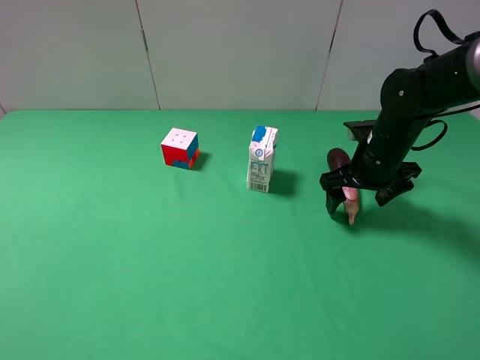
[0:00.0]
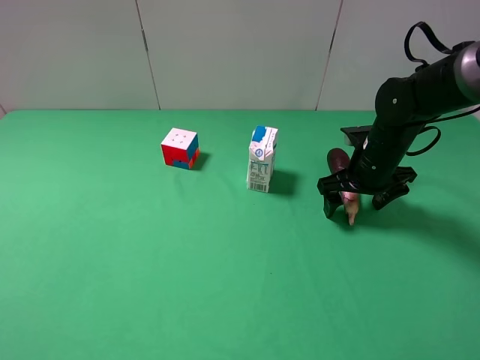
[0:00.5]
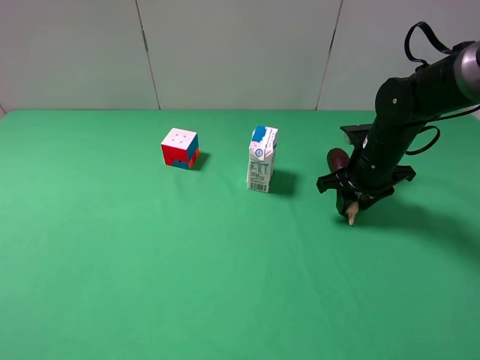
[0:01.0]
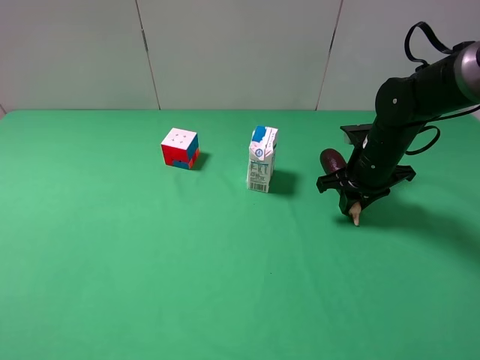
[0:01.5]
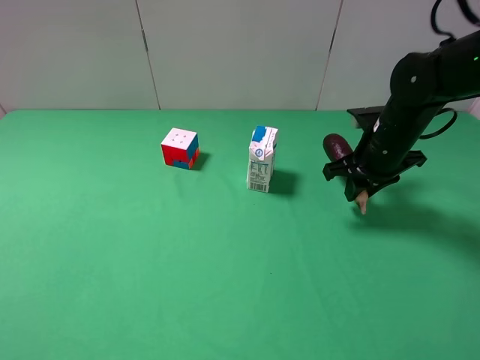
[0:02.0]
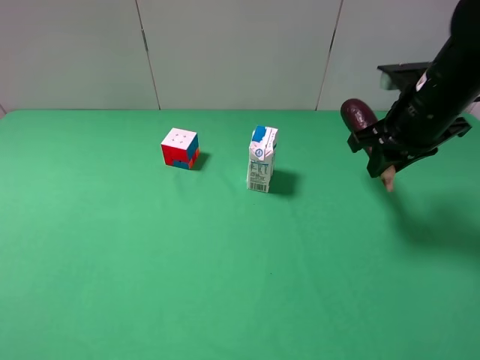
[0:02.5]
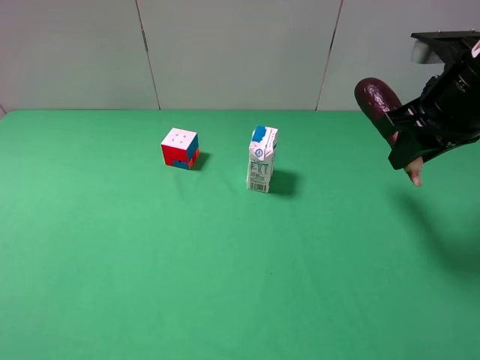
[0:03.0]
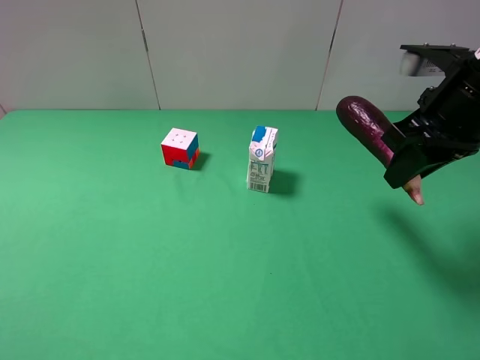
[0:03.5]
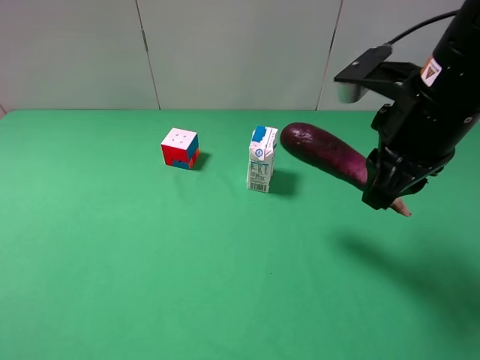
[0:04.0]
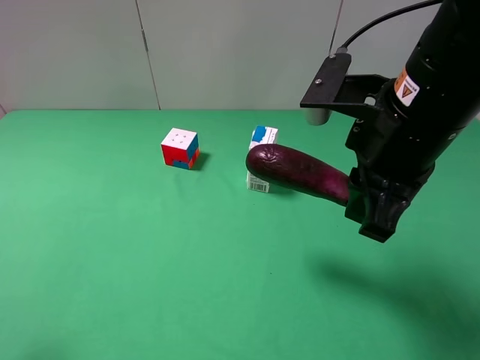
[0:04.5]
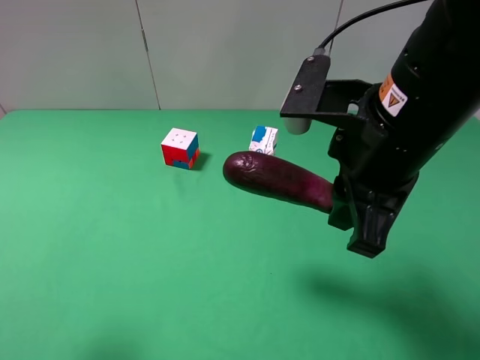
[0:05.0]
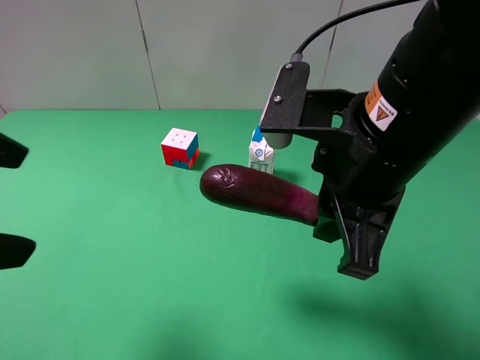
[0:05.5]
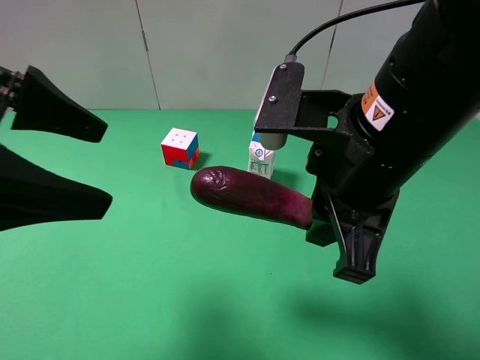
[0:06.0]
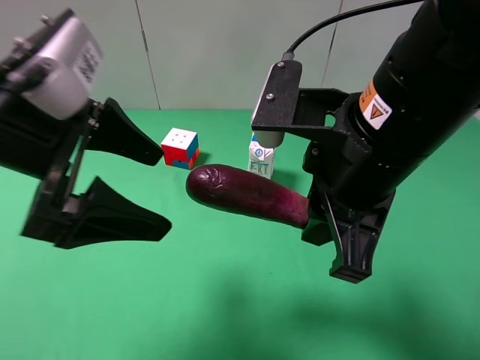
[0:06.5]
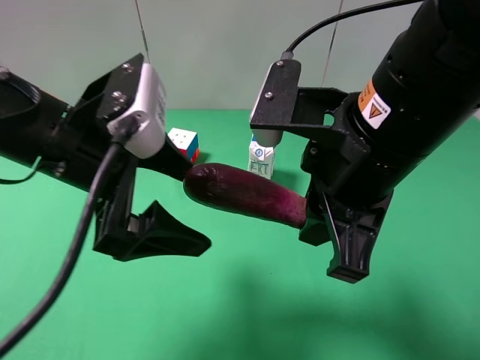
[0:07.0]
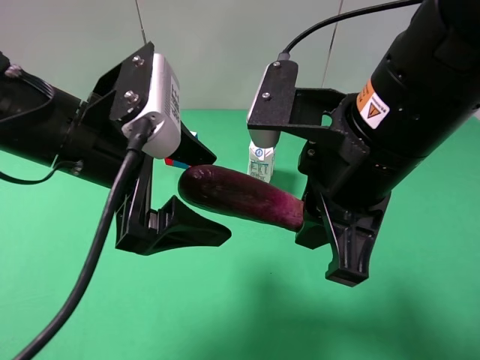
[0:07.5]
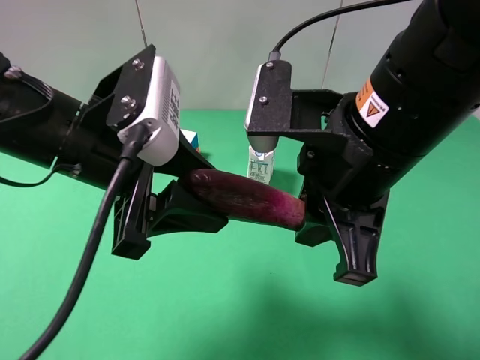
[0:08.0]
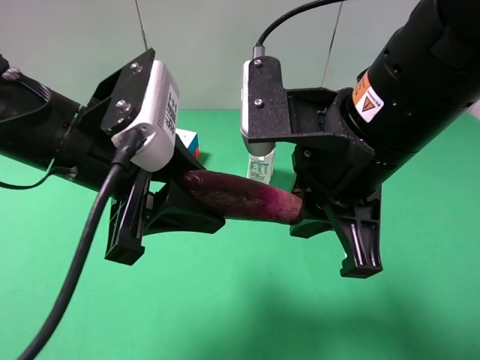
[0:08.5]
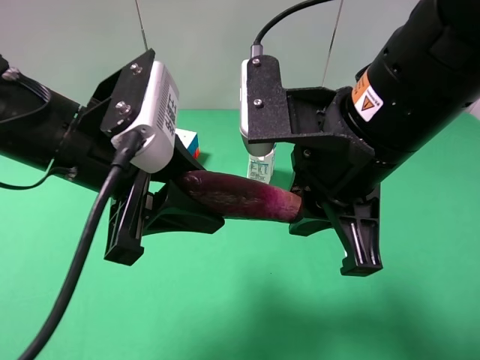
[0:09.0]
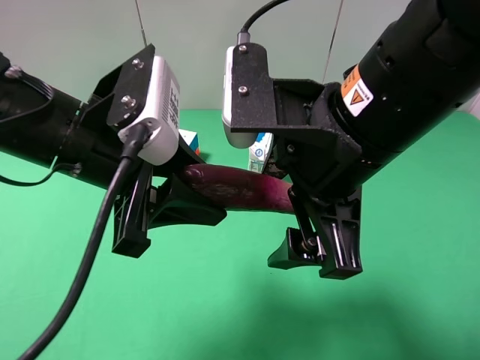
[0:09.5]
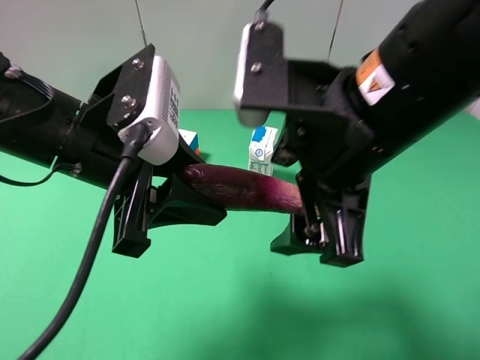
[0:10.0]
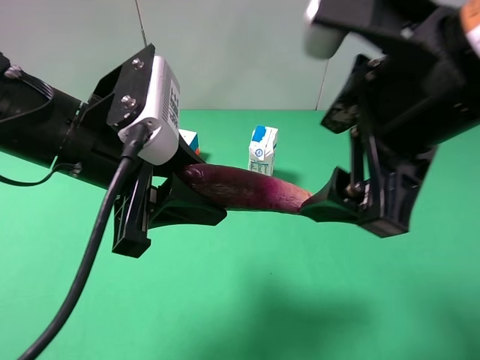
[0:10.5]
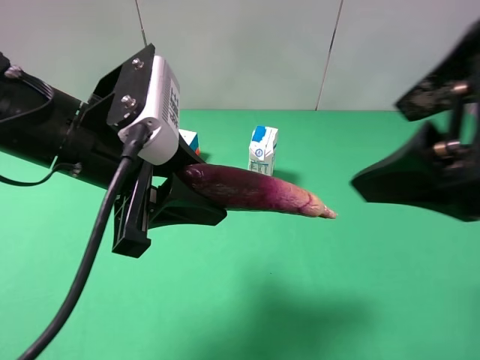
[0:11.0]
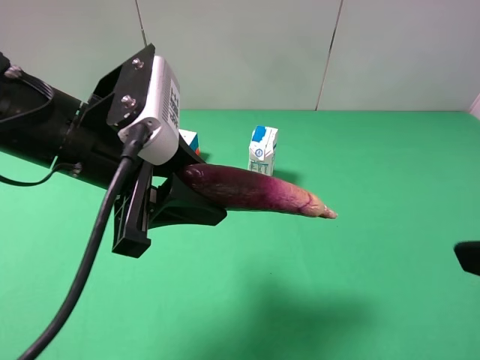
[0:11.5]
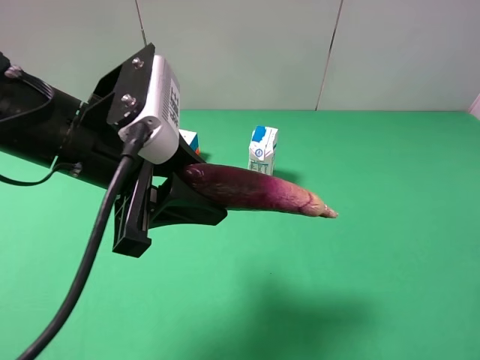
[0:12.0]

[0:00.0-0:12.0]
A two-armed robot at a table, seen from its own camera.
Task of the whole recording: use the right gripper to pick up the item and transfer it from the right gripper to the left gripper.
Step, 0:01.5 to 0:09.0: Pass the eggplant to the left gripper.
0:00.0 to 0:02.0: The right gripper closes up.
0:02.0 to 0:04.0: The right gripper is displaced upward, backward and to the left by about 20 cm.
0:04.0 to 0:06.0: The left gripper goes about 20 cm forward and to the right. Meanwhile the right gripper heads to the left and backward, covering about 10 cm.
0:06.0 to 0:08.0: The left gripper heads to the right and downward, covering about 10 cm, and closes its fingers.
0:08.0 to 0:10.0: The right gripper opens.
0:10.0 to 0:12.0: The right gripper shifts roughly 25 cm to the right and backward.

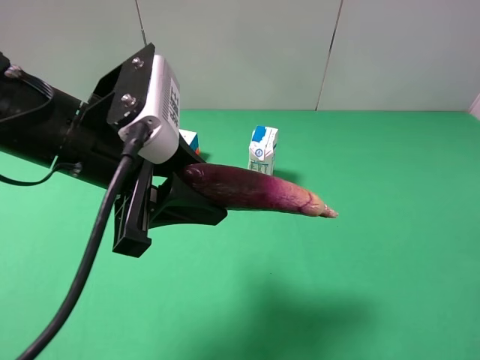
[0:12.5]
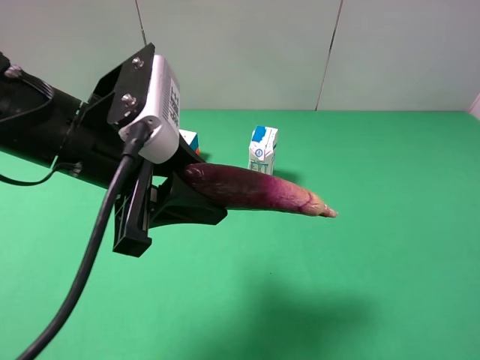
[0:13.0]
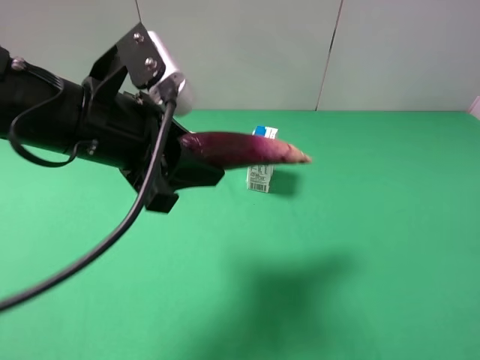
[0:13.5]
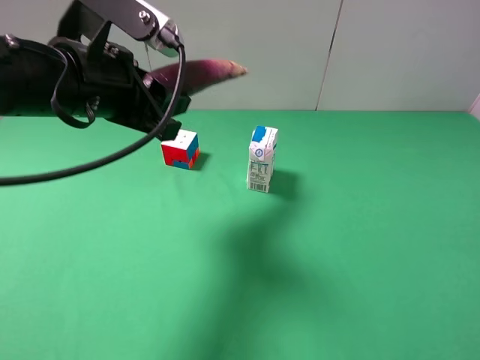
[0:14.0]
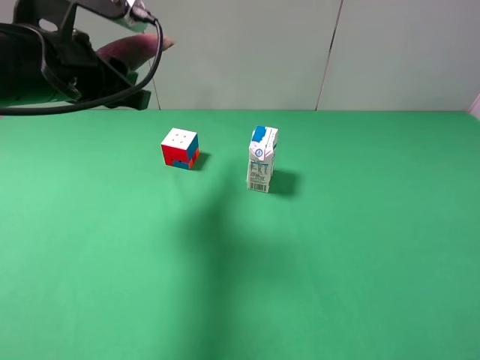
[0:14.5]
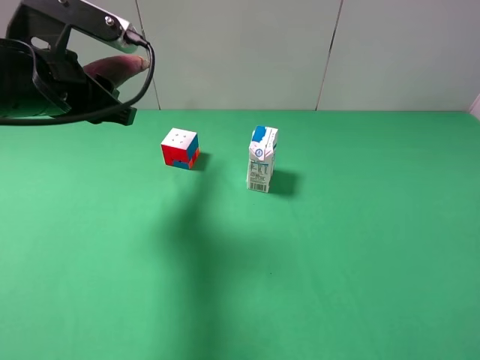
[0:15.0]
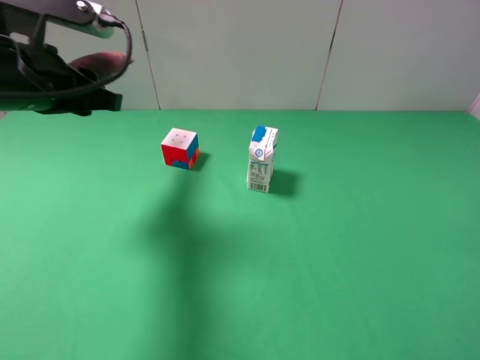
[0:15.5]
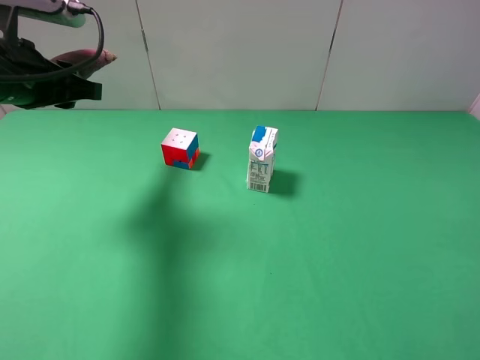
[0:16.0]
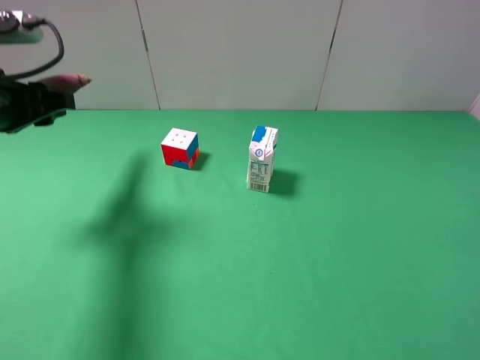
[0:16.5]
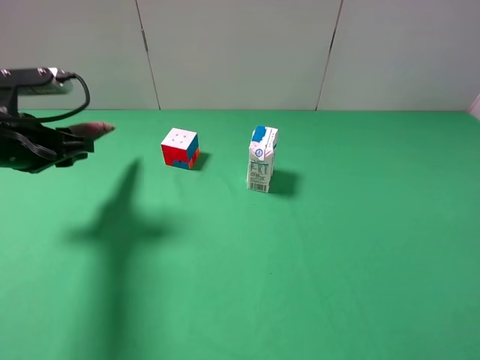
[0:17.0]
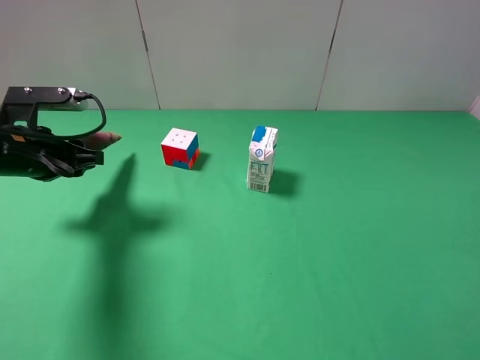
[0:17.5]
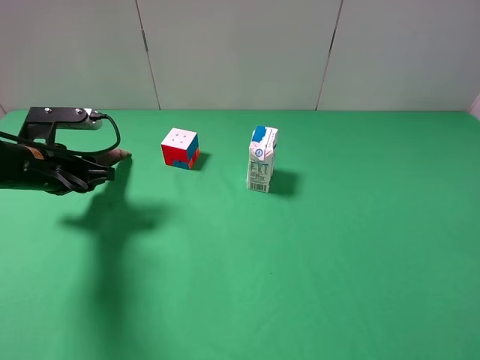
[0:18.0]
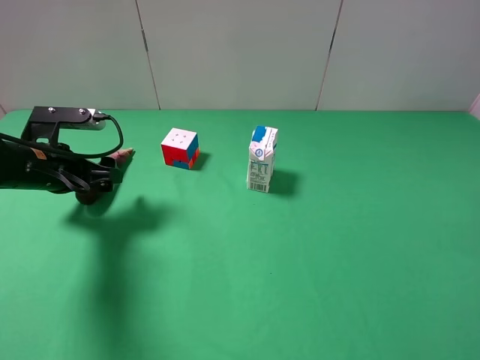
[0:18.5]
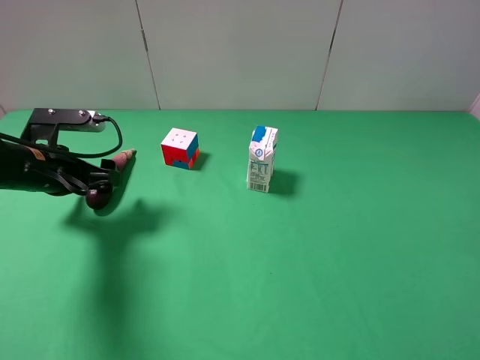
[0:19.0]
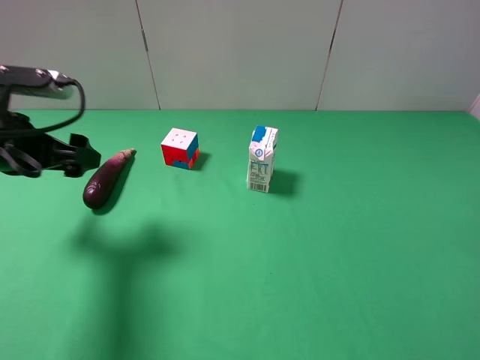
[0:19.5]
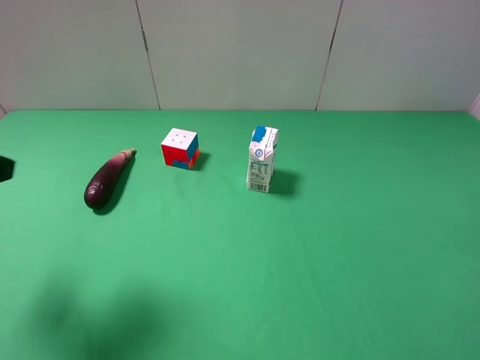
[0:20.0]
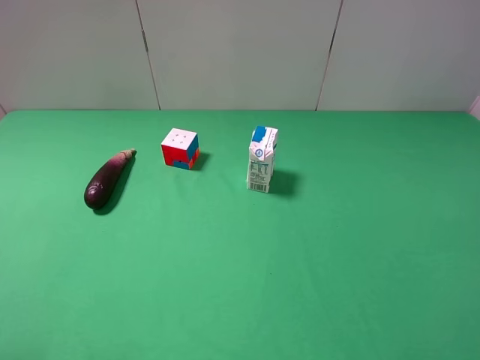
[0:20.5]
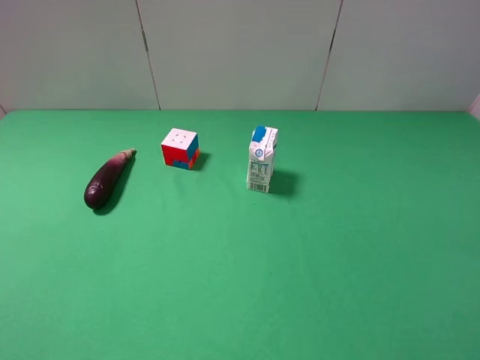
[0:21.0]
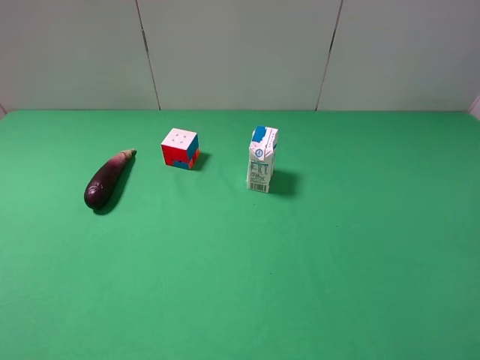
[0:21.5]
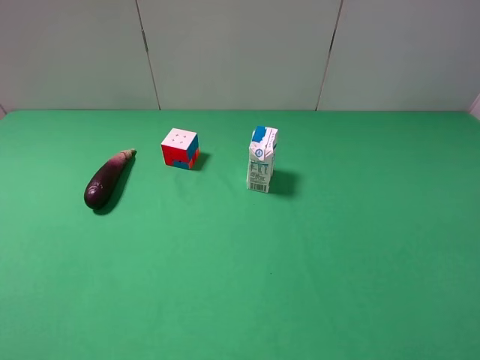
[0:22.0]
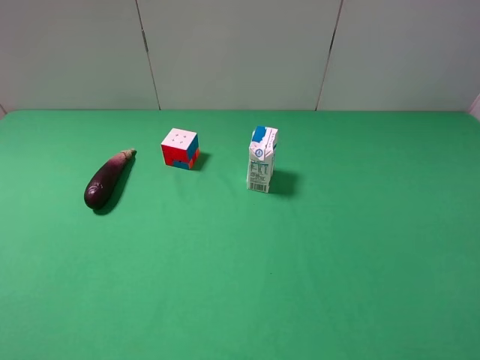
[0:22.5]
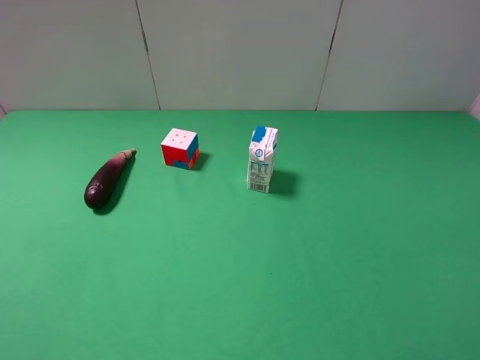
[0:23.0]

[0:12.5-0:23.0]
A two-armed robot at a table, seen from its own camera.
Task of the whole recording: use the right gripper to pick up the item and transfer it from the right gripper to the left gripper.
Step, 0:12.5 to 0:18.5: The left gripper places eggplant on the left side of the table.
0:12.5 to 0:14.5: The left gripper travels to the left and forward by some 10 cm.
0:14.5 to 0:16.5: The left gripper shifts about 10 cm to the left.
0:16.5 to 0:19.0: The left gripper heads downward, covering about 10 cm, and opens up.
0:19.0 to 0:21.0: The left gripper shifts about 30 cm backward and upward.
